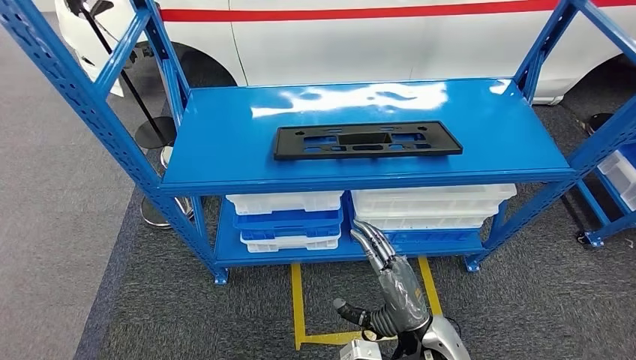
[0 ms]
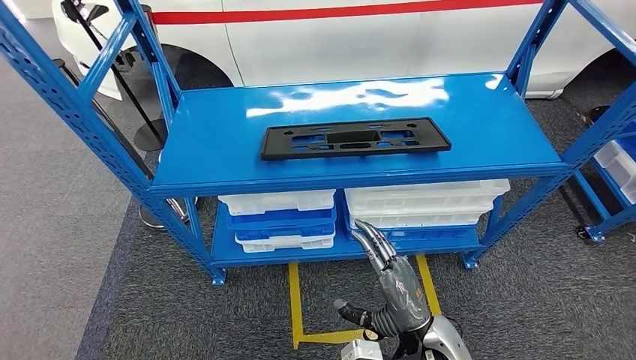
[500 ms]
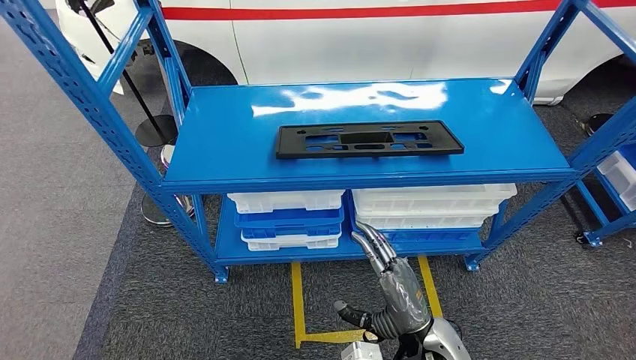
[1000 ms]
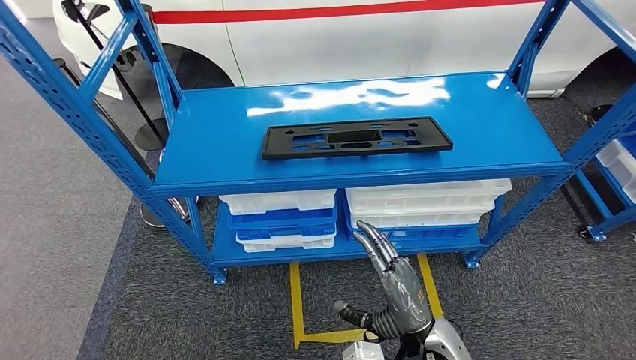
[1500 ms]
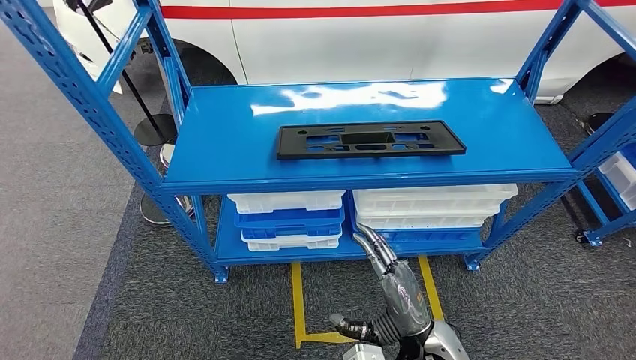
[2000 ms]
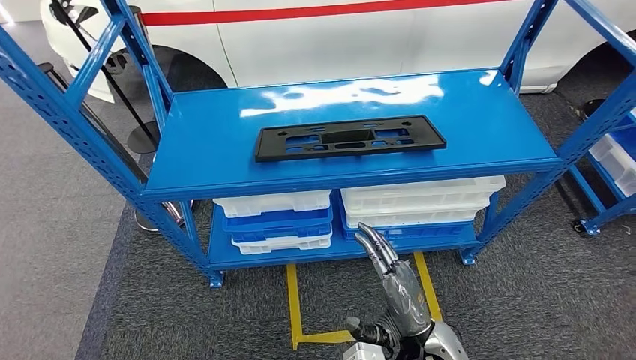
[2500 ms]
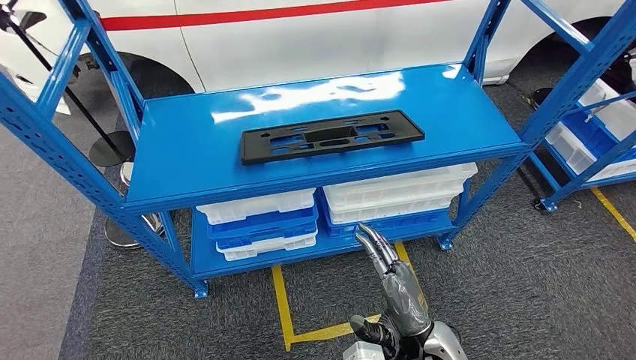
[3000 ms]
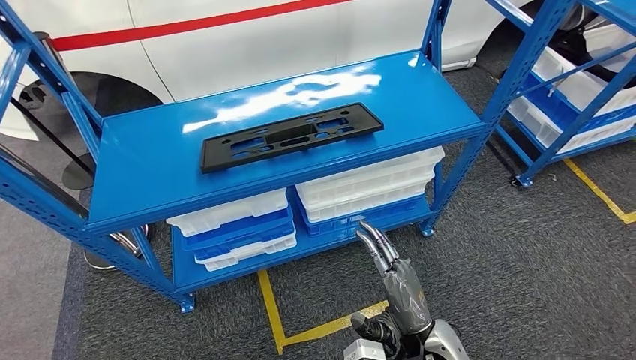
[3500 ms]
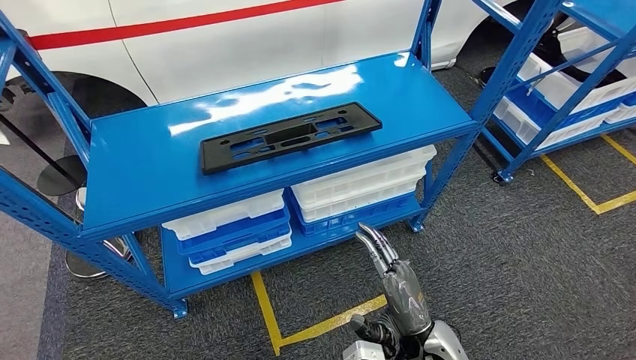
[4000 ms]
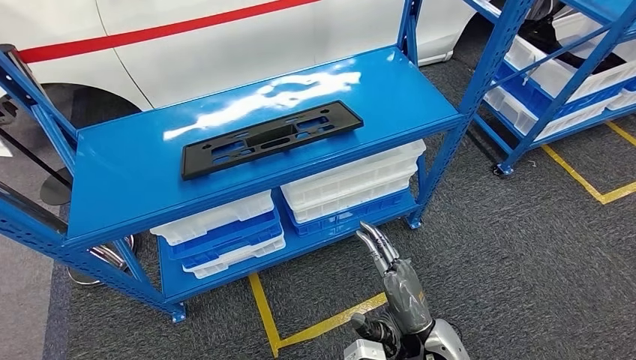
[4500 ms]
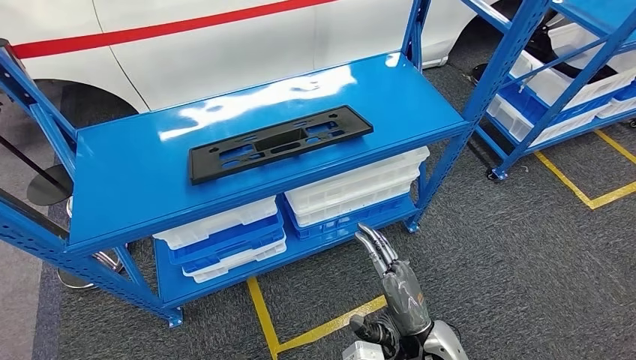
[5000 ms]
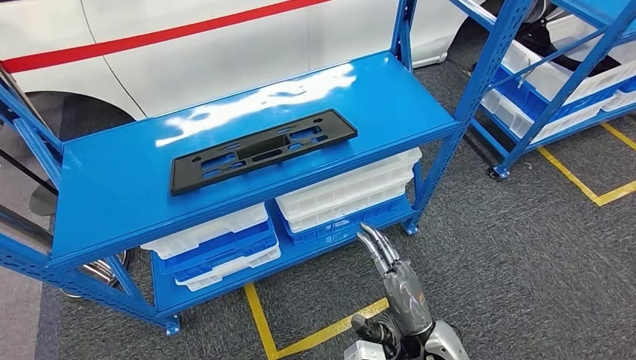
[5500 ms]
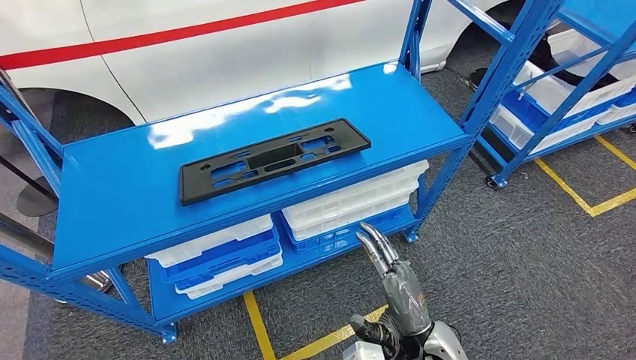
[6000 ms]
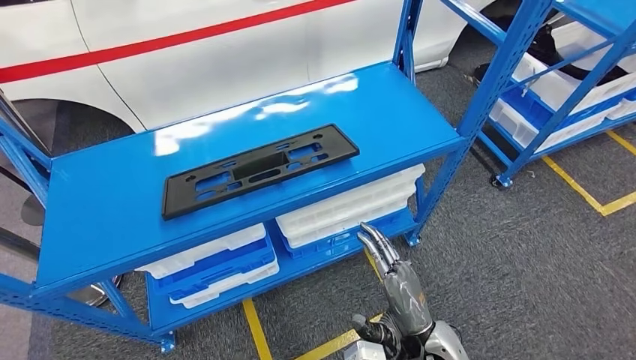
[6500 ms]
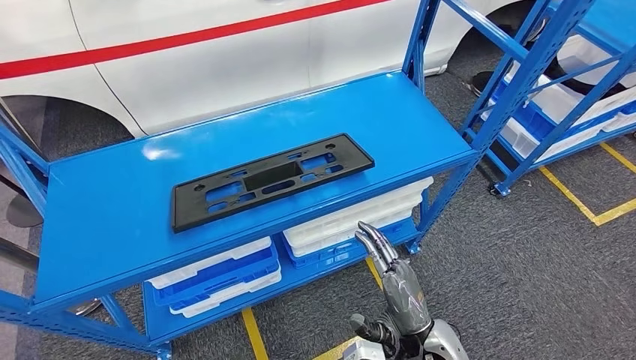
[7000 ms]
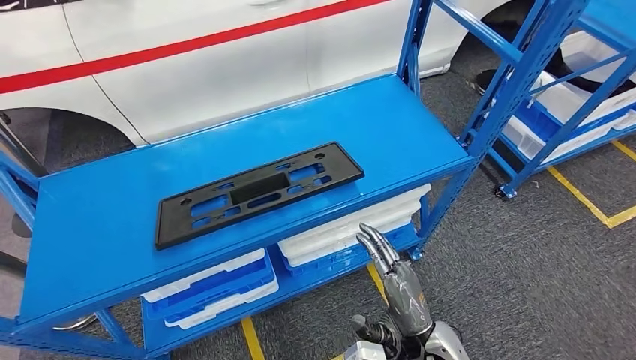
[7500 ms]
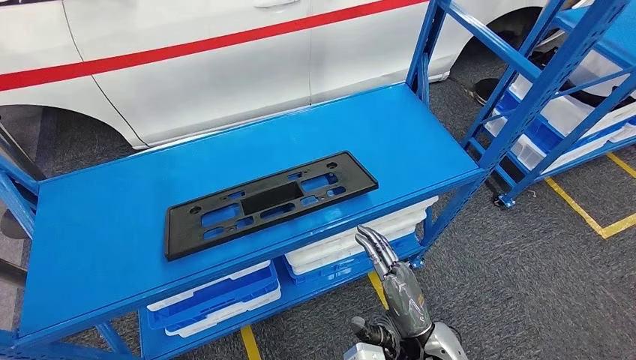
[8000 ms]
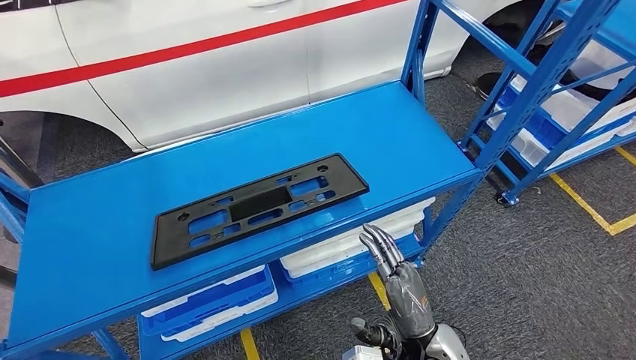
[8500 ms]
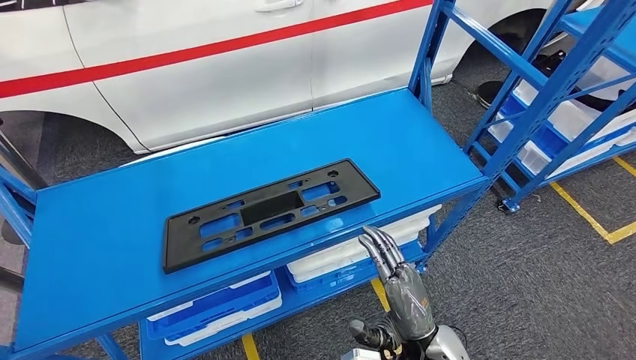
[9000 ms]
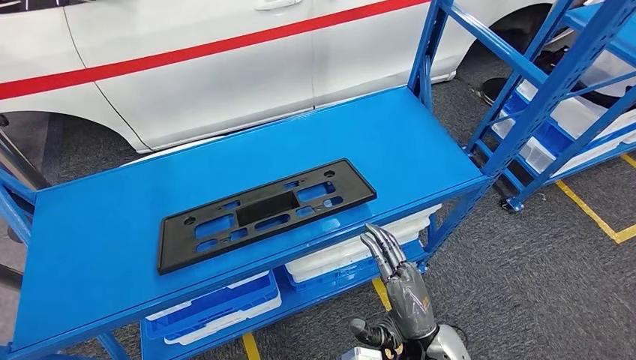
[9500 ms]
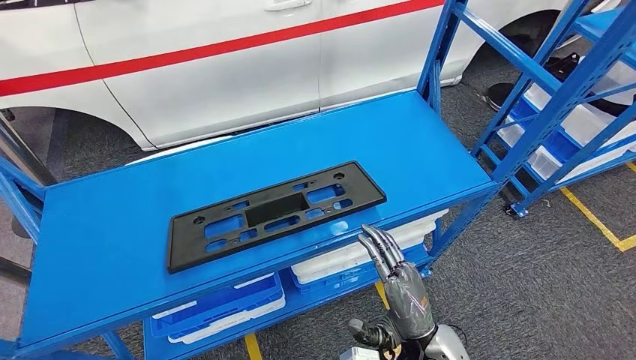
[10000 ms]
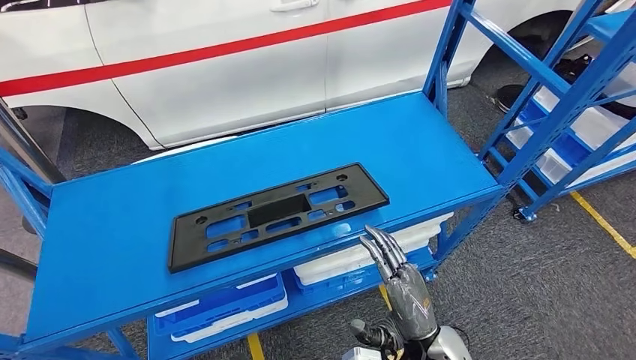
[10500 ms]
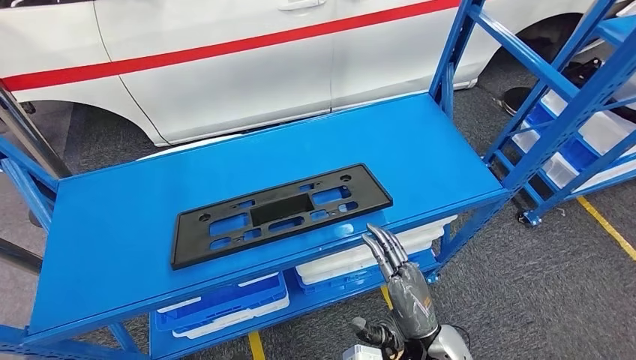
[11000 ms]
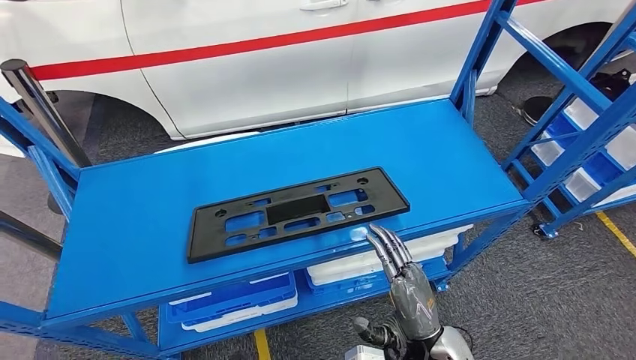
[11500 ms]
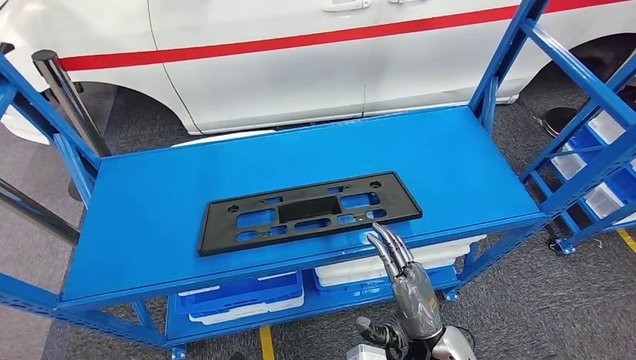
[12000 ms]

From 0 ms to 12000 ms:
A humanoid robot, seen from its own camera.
From 0 ms to 2000 ms: The two hands keep their place.

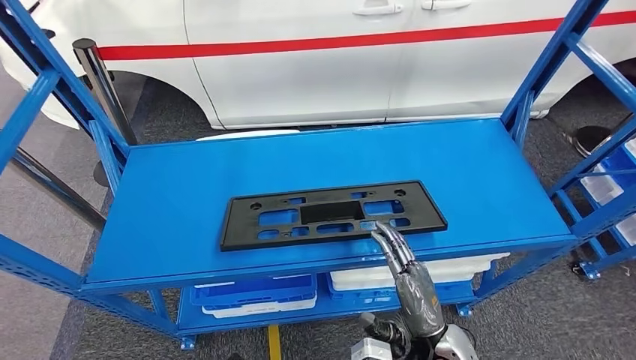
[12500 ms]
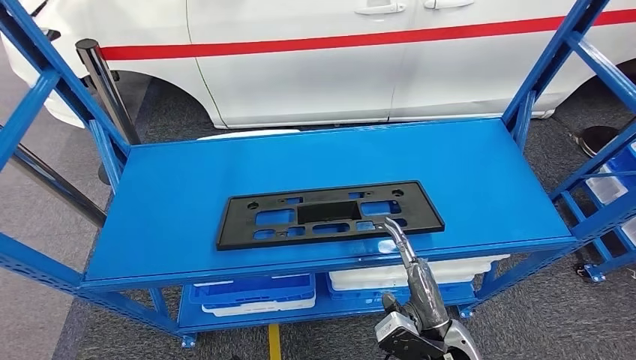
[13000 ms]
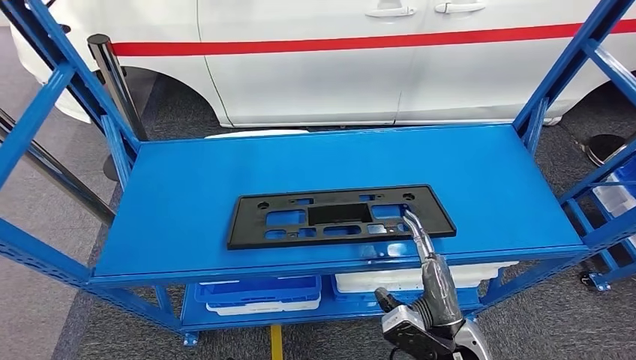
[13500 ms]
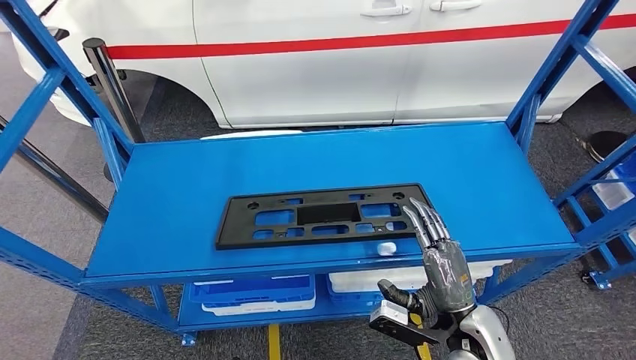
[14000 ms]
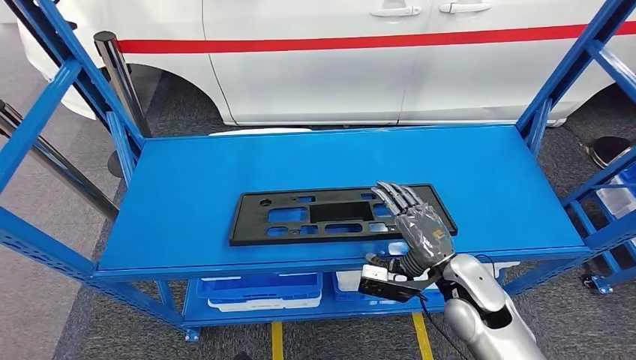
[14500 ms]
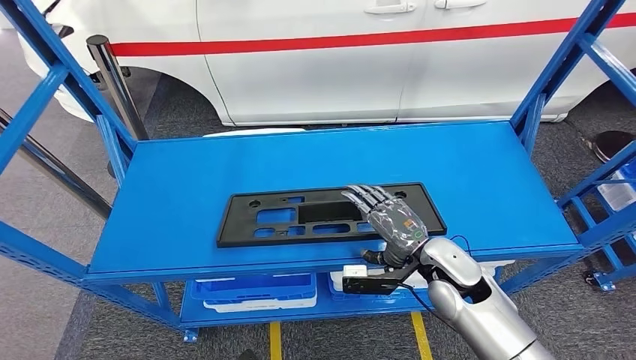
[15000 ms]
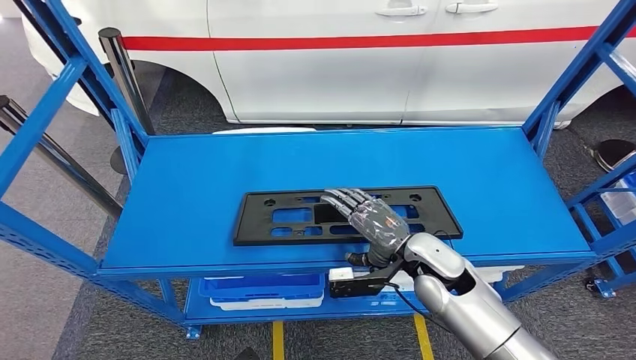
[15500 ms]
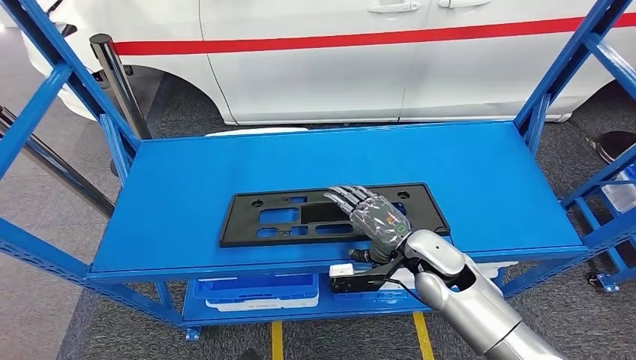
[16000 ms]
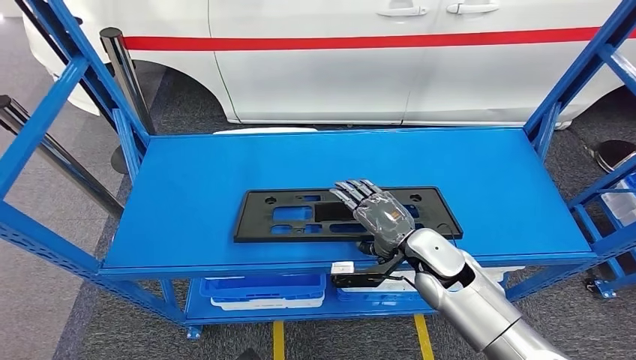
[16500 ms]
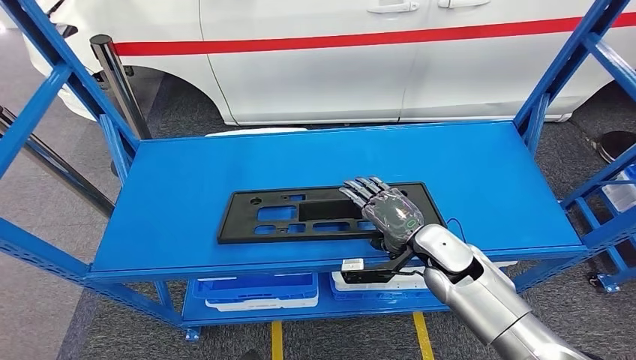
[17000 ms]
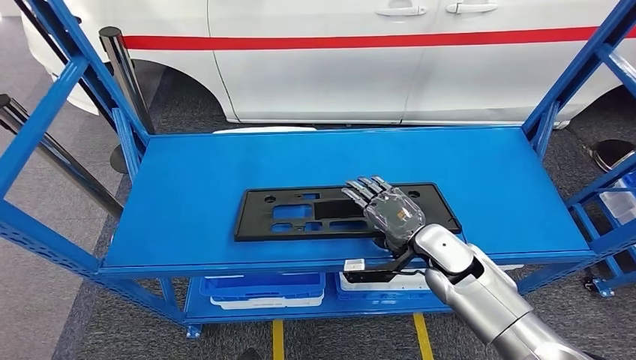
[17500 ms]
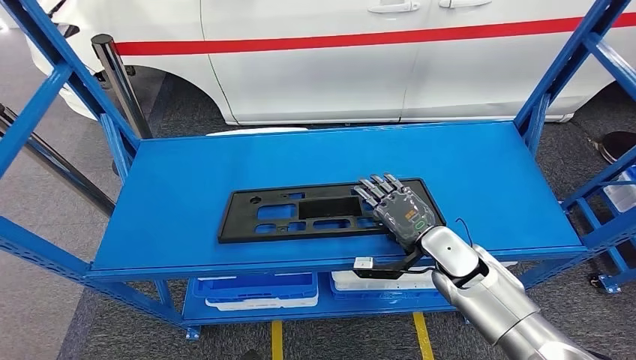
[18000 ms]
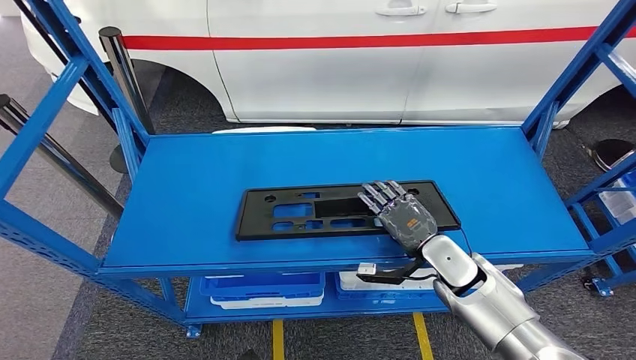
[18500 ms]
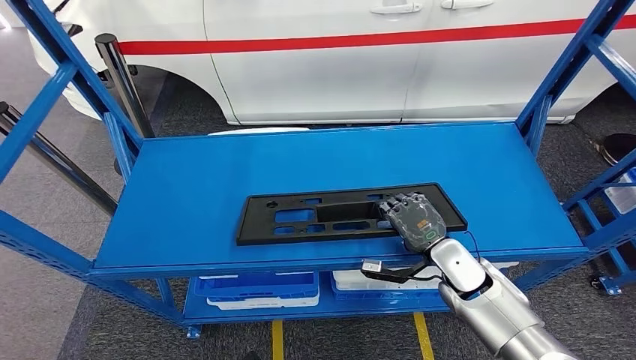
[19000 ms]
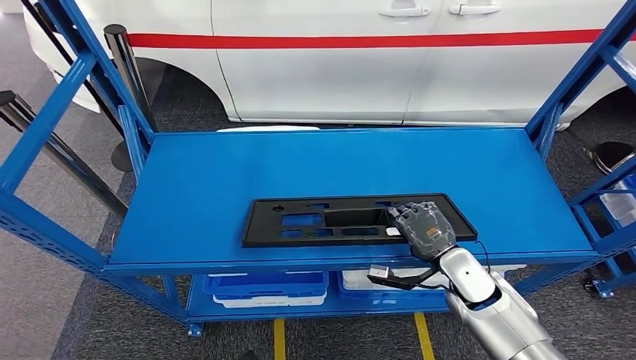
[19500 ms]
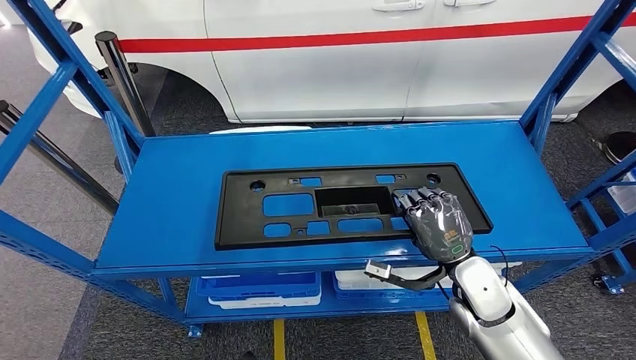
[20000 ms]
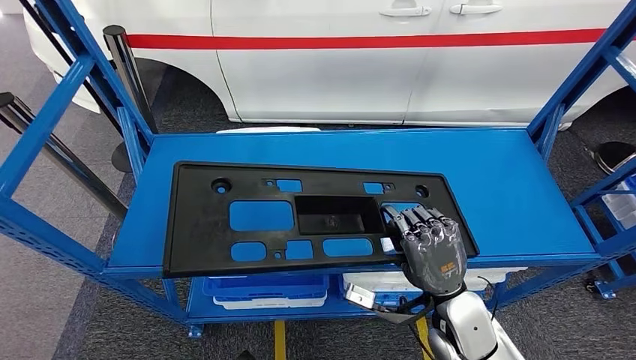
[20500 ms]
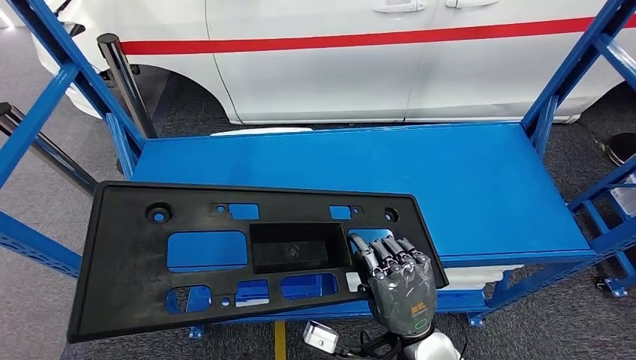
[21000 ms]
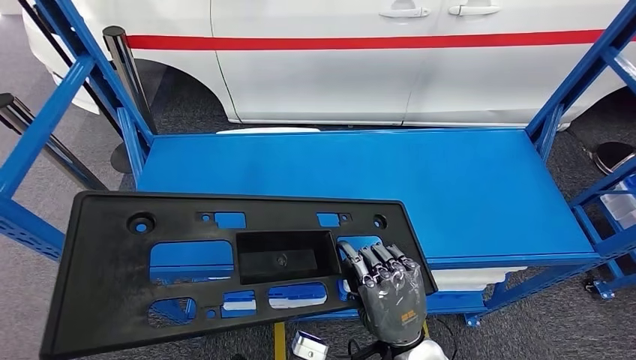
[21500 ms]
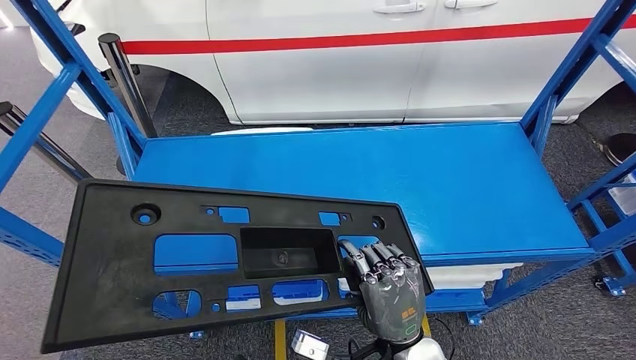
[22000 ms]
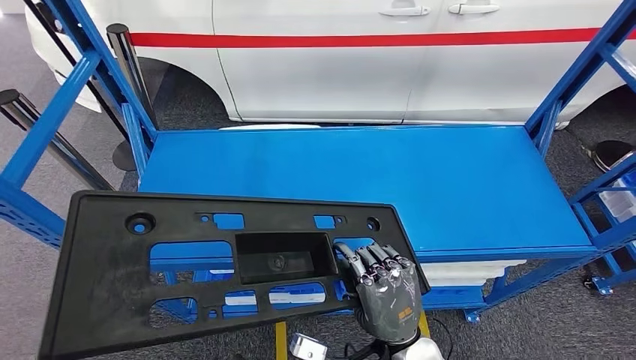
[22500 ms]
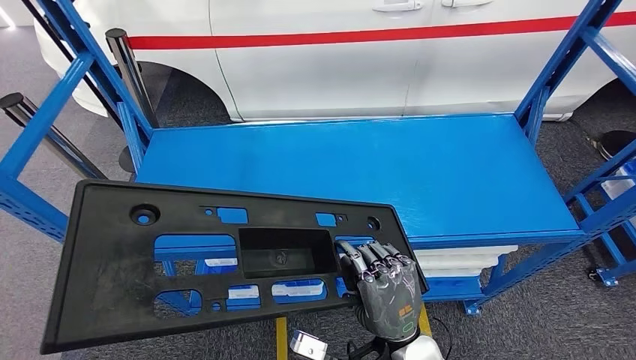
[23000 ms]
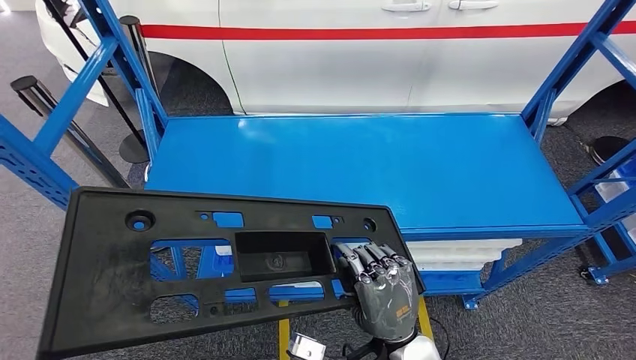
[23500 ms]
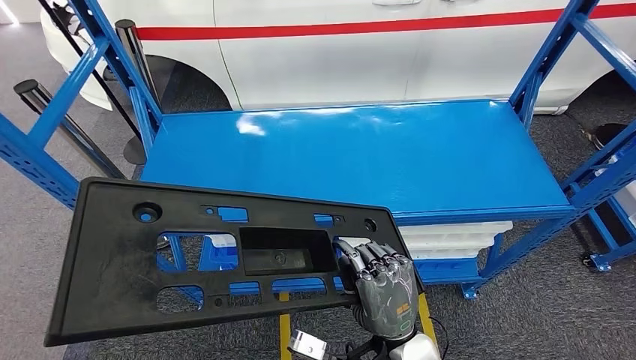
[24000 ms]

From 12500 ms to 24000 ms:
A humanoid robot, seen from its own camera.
Step, from 12500 ms to 21000 ms: Pick up the large material from the shelf.
From 16500 ms to 18500 ms: The right hand moves about 5 cm.
